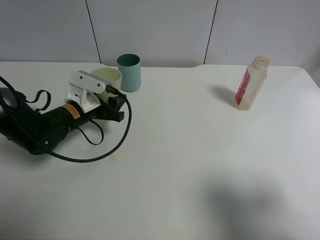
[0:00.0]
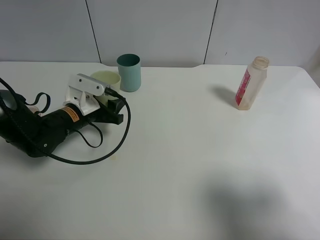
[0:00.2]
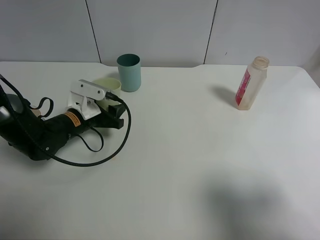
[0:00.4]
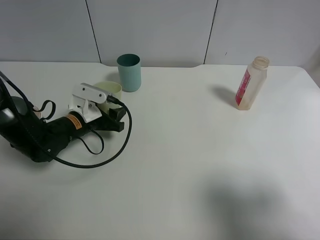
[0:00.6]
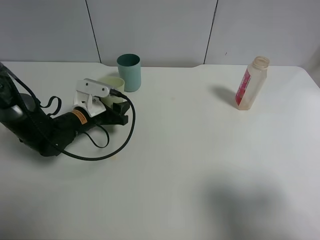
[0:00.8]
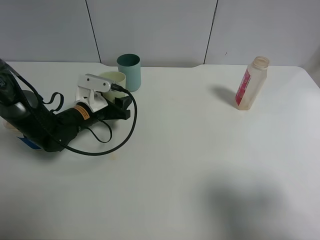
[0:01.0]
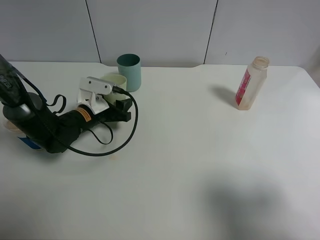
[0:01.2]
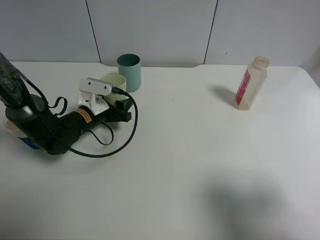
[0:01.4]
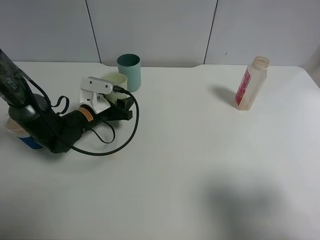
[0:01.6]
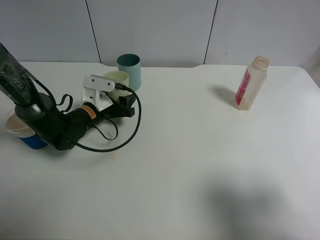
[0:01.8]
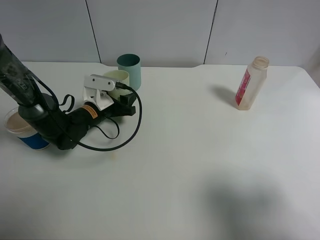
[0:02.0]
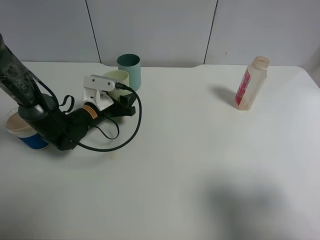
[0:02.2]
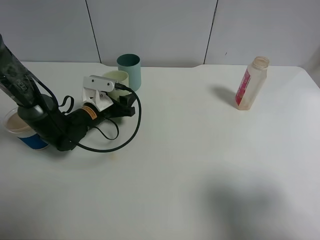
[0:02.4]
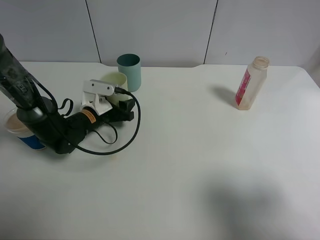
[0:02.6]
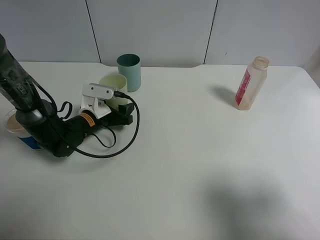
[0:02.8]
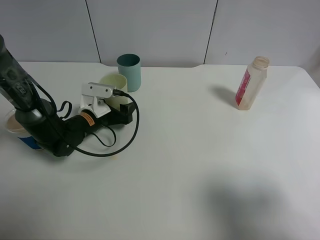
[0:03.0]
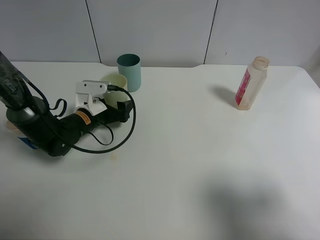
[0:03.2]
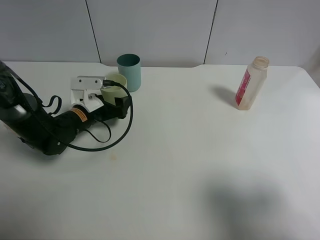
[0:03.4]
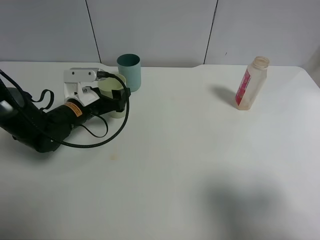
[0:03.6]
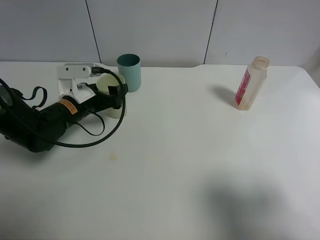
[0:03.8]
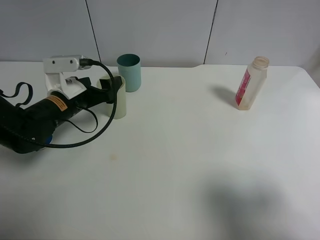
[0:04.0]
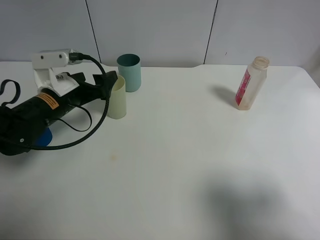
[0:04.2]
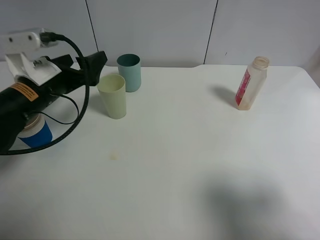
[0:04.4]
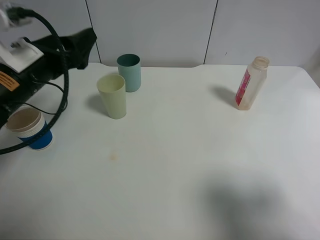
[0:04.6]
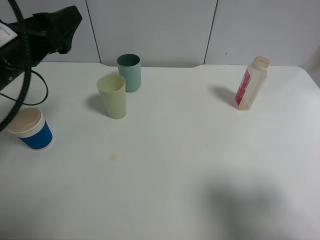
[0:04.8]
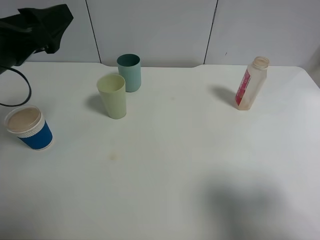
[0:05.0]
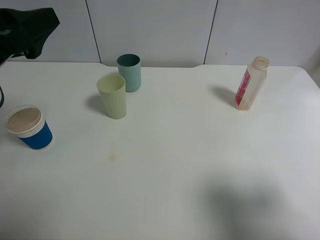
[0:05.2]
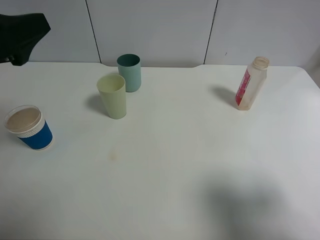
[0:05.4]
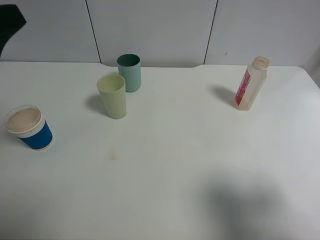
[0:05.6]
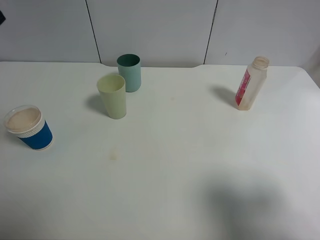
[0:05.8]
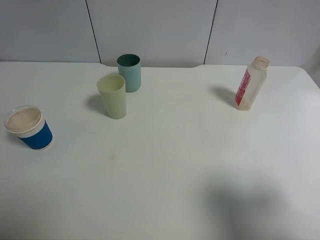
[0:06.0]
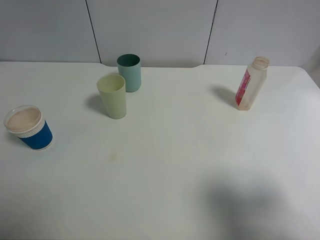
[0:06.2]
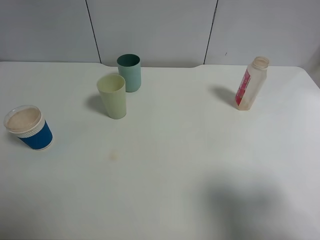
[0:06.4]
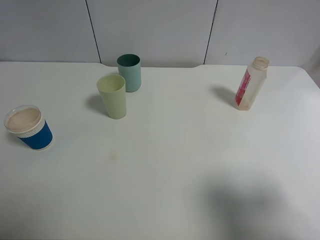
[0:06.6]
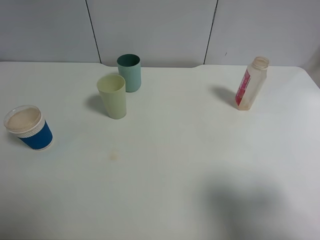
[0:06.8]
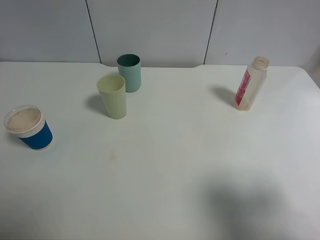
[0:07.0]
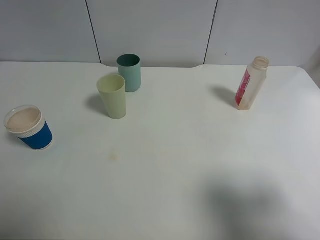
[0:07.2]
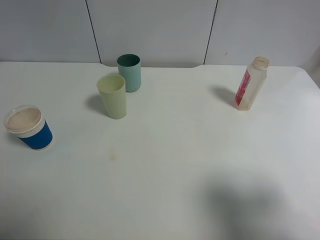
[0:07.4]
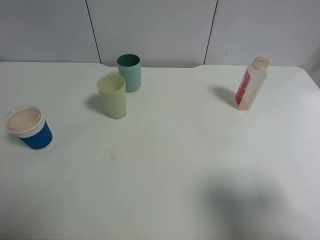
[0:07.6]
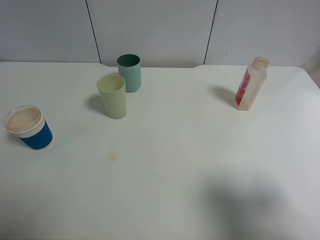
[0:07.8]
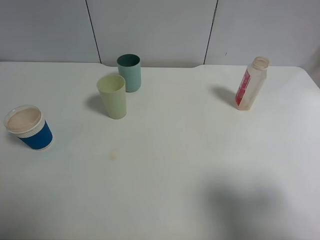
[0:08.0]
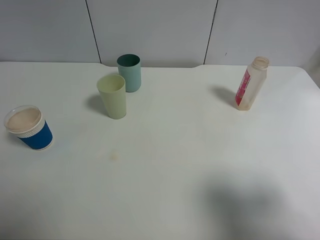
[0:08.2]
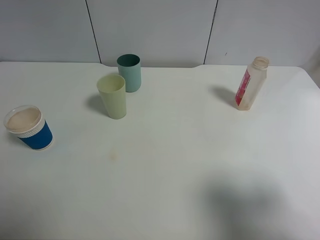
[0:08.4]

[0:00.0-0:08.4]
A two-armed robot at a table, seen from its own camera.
Task of the whole recording: use a clamp to hold the bottle of the drink, pour the beverage into a random cup, then clamp the cup containing the drink and pour the drink into another random cup.
Step, 0:00.0 to 0:03.8: Place the green plastic cup on the table with left gripper.
0:00.0 to 0:02.8: The grippers stay close to where they were, moving slightly.
0:02.8 to 0:04.2: The left gripper shifts some 10 cm upward, and opens.
0:04.2 to 0:05.6: The left gripper moves upward and backward, about 20 cm.
0:05.6 to 0:07.0: The left gripper shifts about 15 cm backward and to the left.
